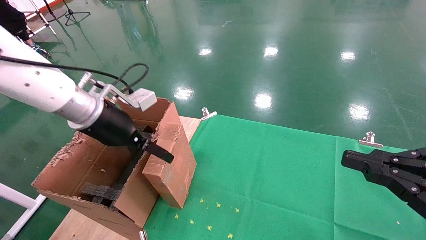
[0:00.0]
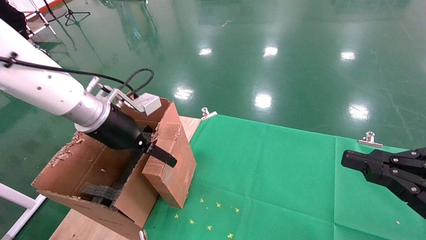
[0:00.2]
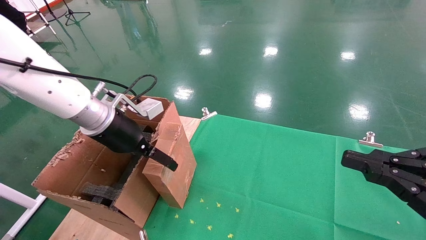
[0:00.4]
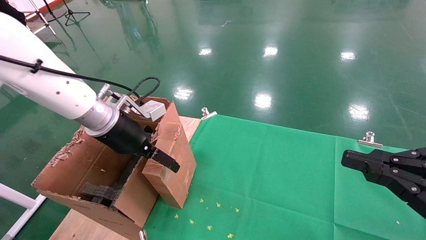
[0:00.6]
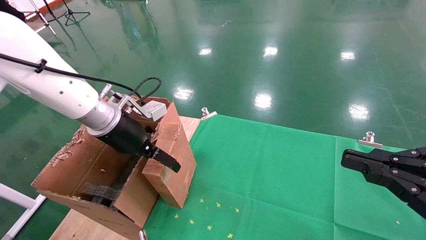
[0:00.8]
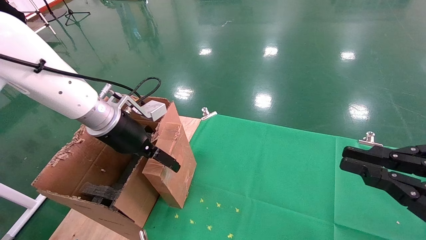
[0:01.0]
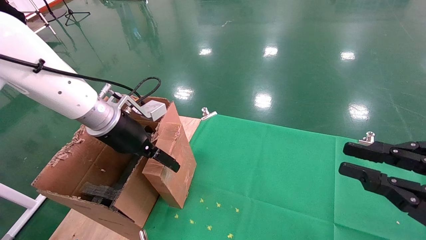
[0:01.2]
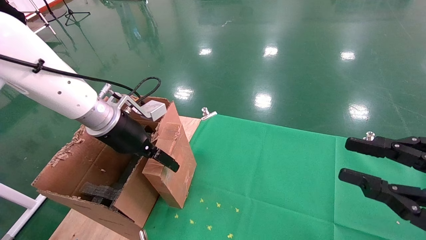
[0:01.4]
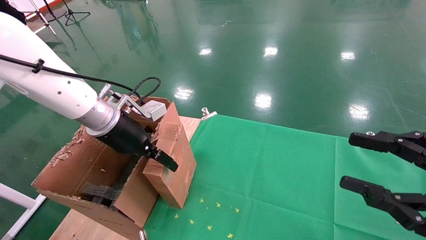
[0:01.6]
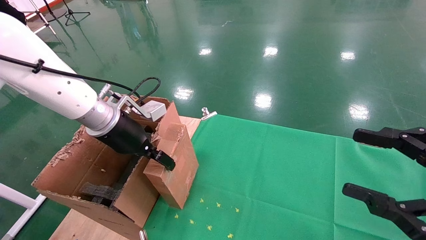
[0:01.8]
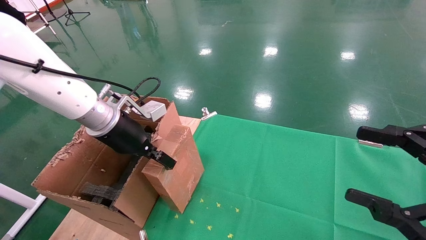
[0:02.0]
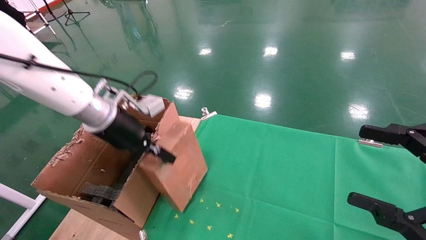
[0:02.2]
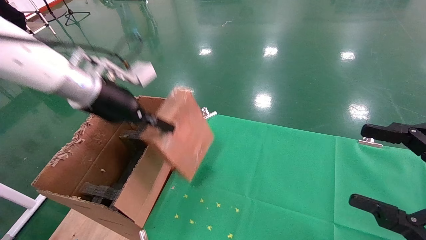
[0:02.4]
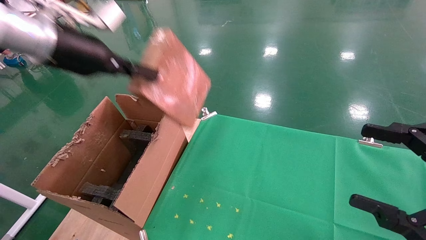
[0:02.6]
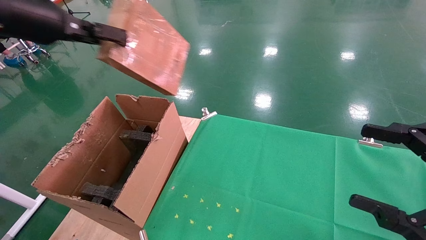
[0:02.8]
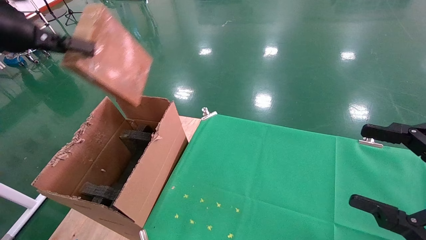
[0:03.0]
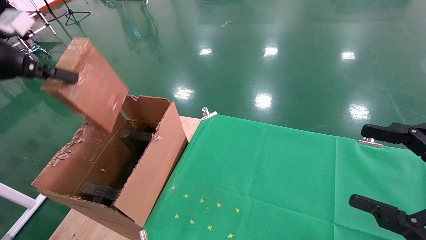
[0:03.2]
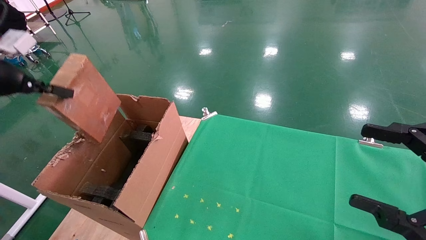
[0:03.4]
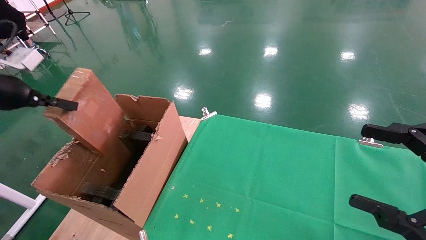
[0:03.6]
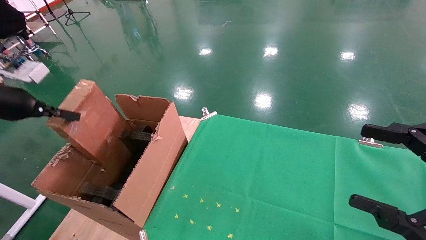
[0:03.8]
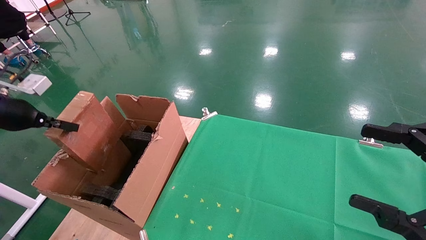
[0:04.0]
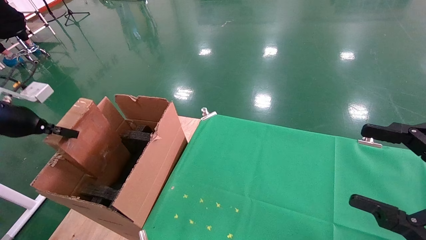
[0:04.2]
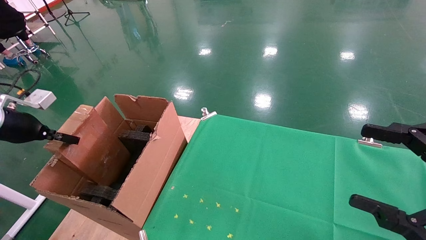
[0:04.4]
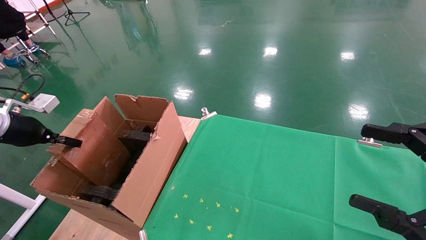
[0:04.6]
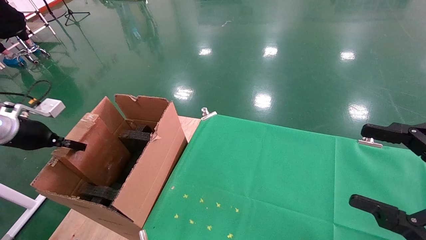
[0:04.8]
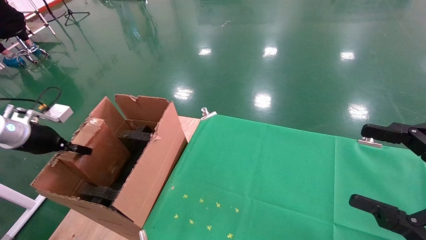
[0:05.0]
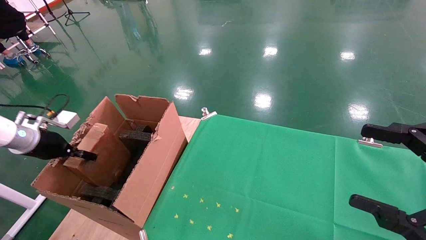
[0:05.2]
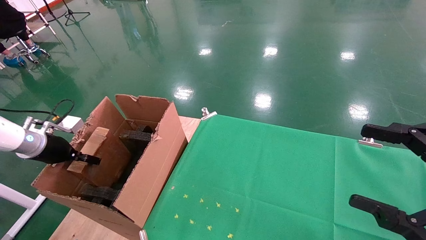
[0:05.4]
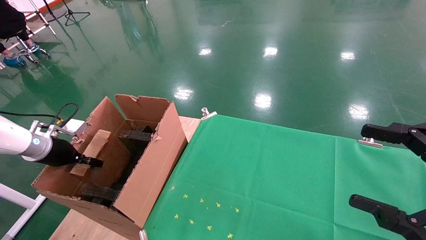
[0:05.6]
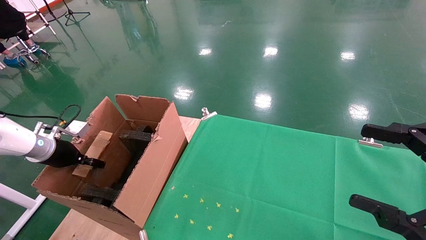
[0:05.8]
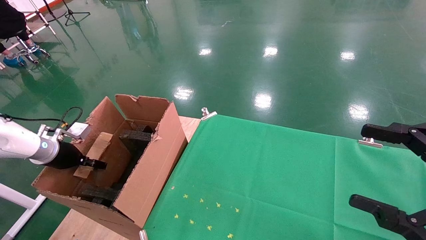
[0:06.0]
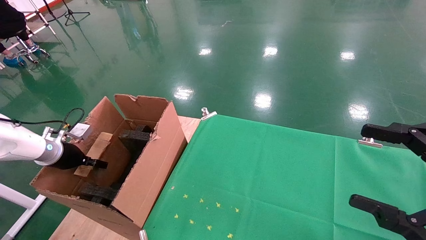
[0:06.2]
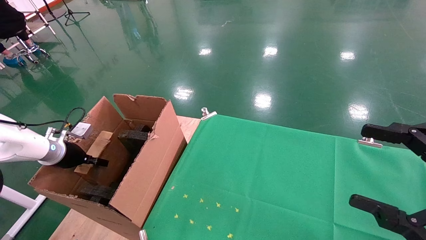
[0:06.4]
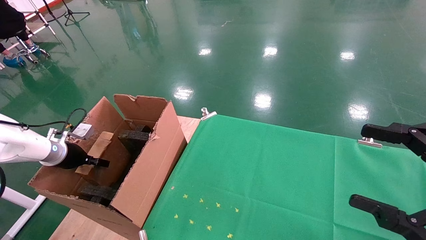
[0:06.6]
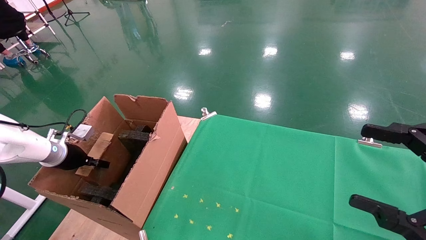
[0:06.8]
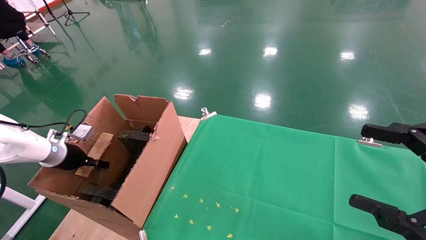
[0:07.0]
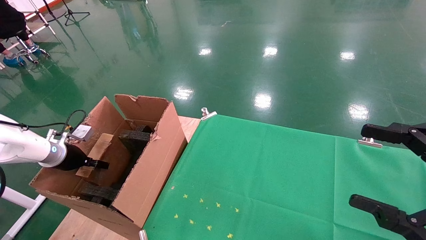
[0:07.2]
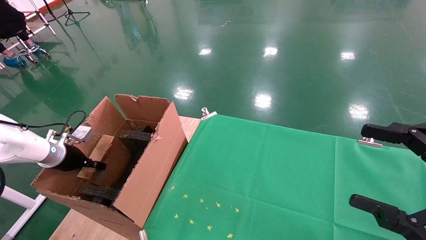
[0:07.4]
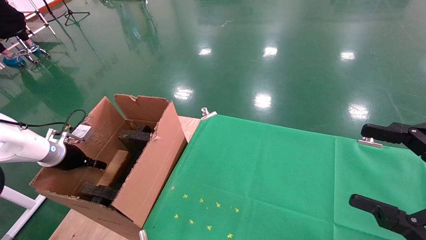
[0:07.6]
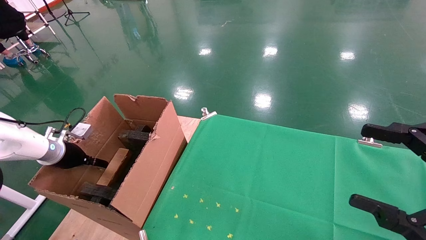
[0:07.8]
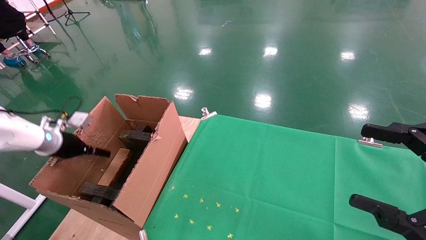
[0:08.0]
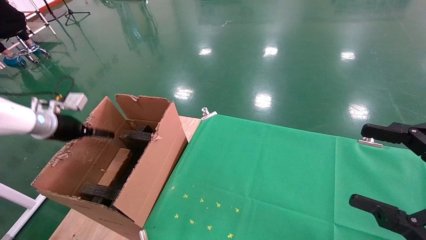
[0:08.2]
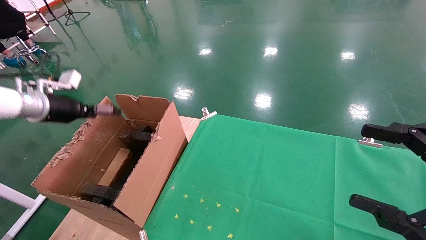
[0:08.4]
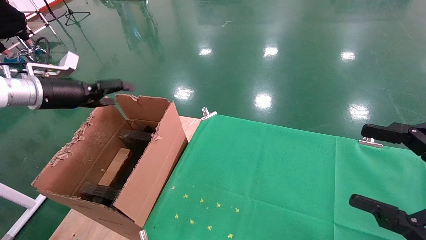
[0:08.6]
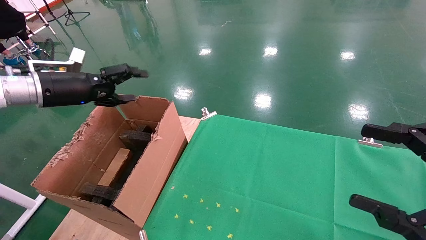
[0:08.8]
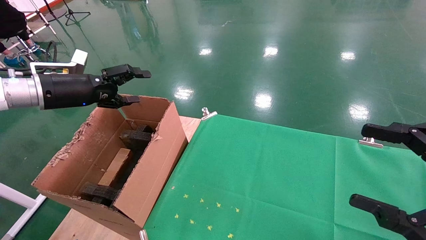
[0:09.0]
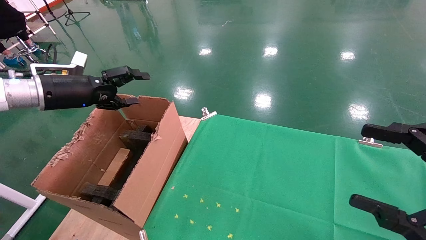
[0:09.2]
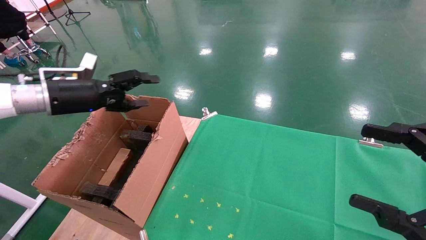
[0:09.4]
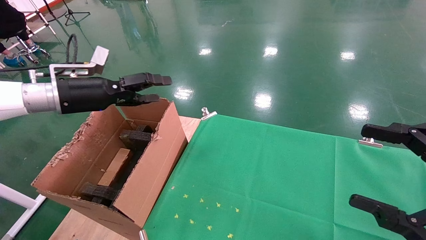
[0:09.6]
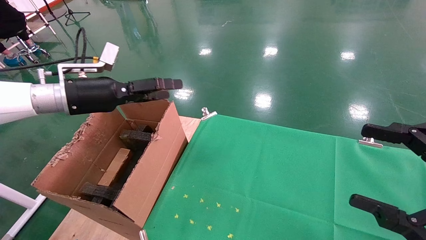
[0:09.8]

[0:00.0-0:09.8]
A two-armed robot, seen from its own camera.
Task of the whole recording: using a robotic arm to pick up a cardboard box and palace it the carton.
Step, 0:02.0 to 0:08.4: Place the mouse and the power cord paper box into the container.
0:00.0 to 0:01.4: The grippers make only small movements.
0:01.4 to 0:02.8: The left gripper heads upward and to the left, covering some 20 cm, and closes its fingers. The right gripper opens up.
0:02.8 to 0:04.2: The left gripper moves downward and to the left, approximately 25 cm.
0:04.2 to 0:05.6: The left gripper heads downward and forward, covering some 10 cm.
0:05.6 to 0:07.0: The grippers stay close to where they were, moving slightly.
0:07.0 to 0:08.4: The left gripper travels upward by roughly 15 cm, and opens its fingers.
0:08.4 to 0:09.8: The left gripper shifts about 15 cm to the right.

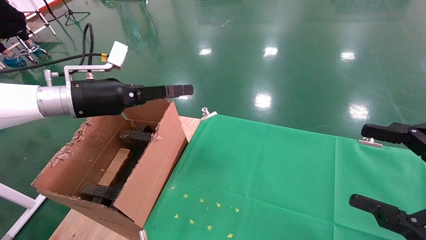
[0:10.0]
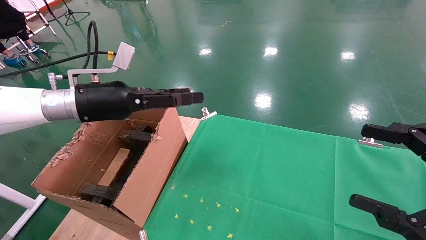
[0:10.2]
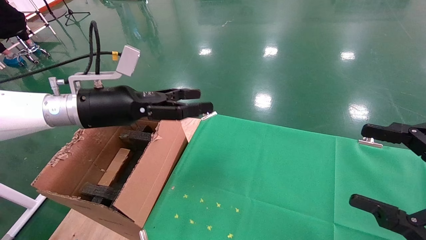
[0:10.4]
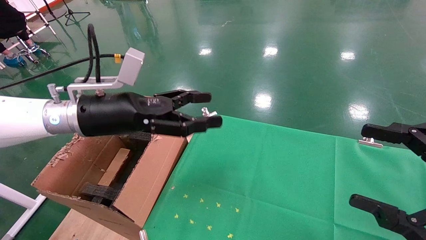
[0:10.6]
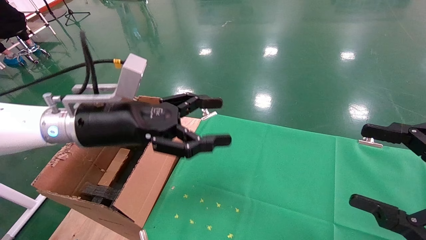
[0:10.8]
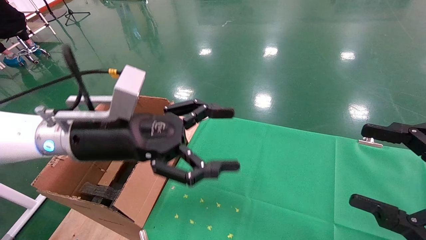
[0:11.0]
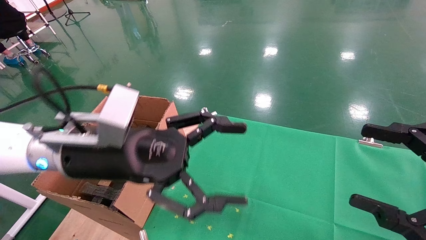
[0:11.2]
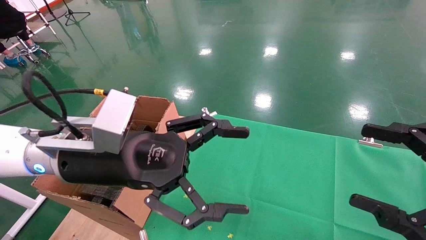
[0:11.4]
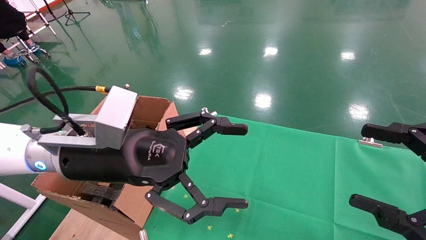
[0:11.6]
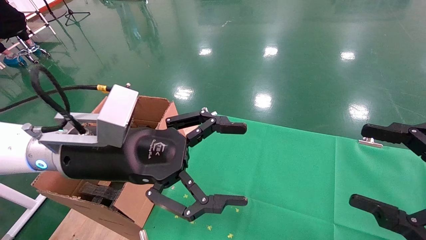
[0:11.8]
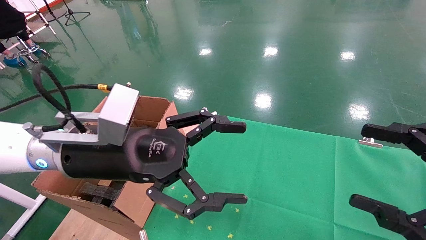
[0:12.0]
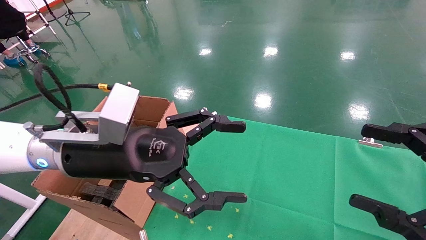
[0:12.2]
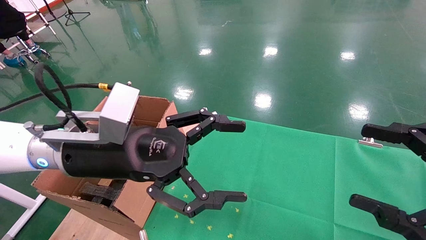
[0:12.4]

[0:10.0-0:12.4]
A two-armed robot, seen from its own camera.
Task of the whole recording: using a robotic arm to pick up a cardboard box and palace it the carton.
0:10.0 to 0:11.2: The left gripper shifts some 15 cm to the right and backward.
0:11.2 to 0:12.4: Neither gripper changes place.

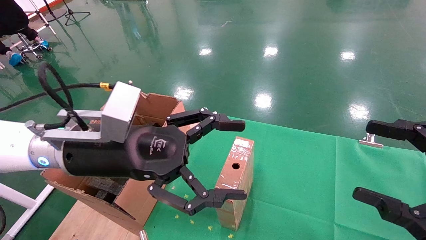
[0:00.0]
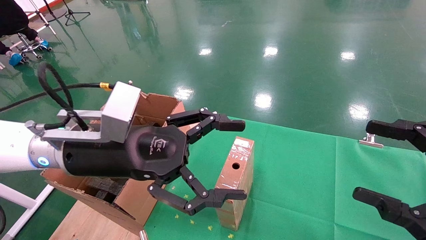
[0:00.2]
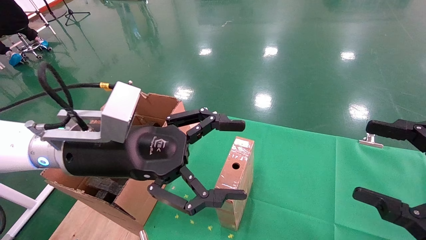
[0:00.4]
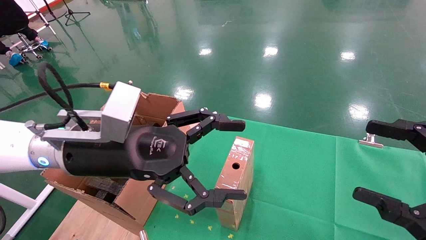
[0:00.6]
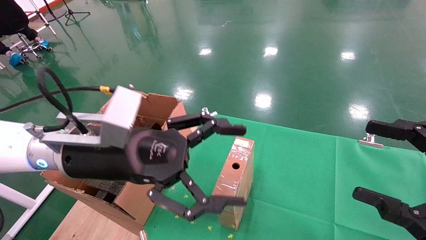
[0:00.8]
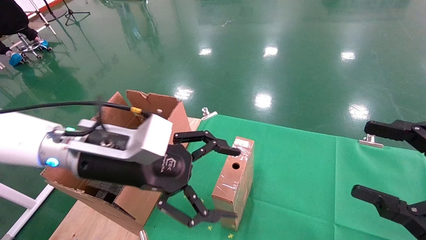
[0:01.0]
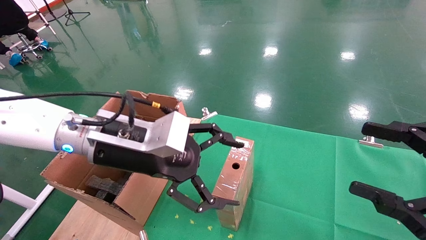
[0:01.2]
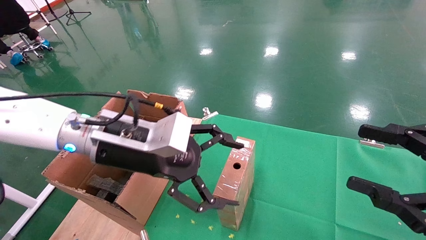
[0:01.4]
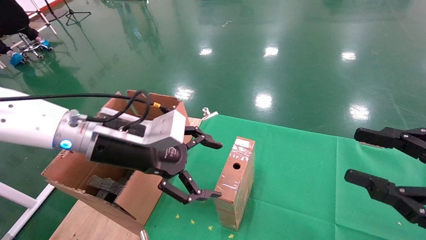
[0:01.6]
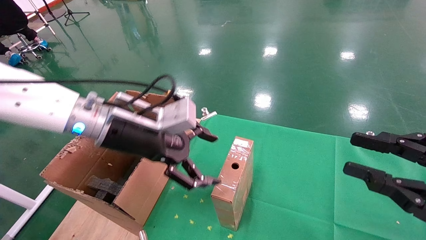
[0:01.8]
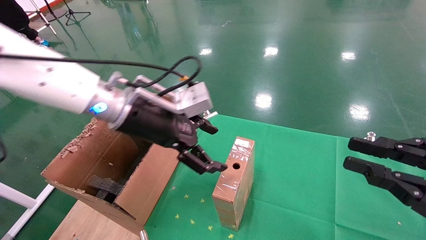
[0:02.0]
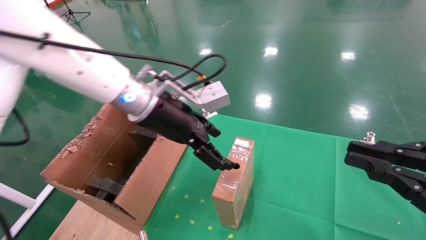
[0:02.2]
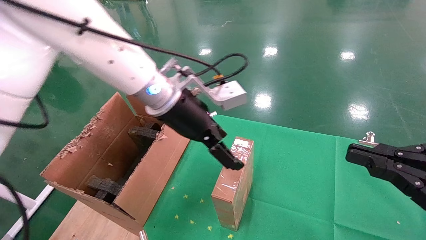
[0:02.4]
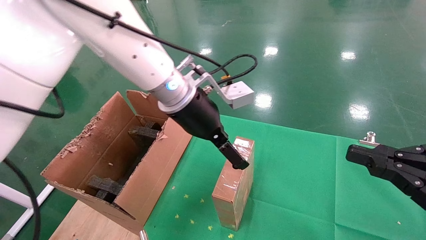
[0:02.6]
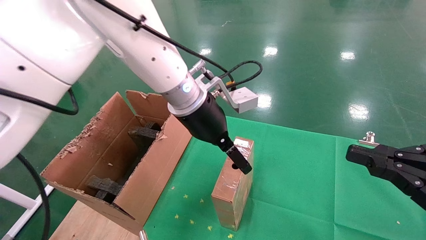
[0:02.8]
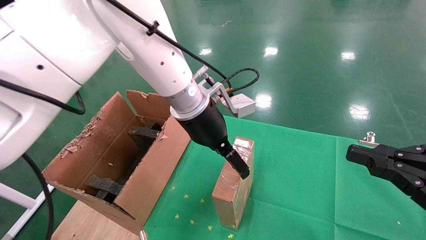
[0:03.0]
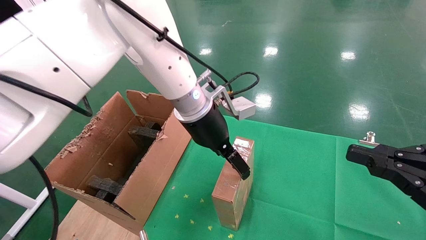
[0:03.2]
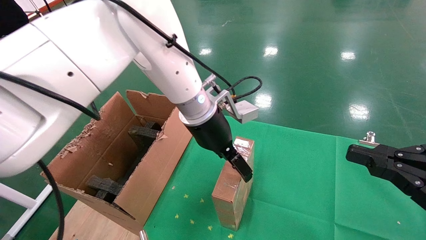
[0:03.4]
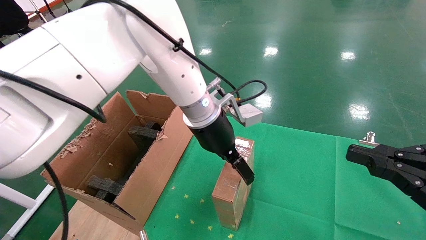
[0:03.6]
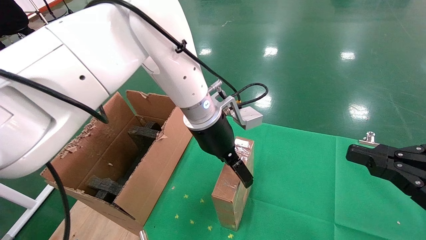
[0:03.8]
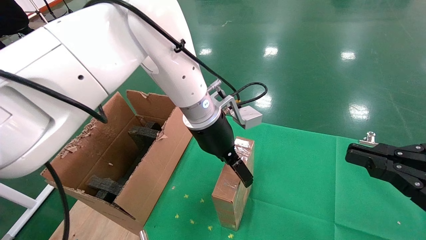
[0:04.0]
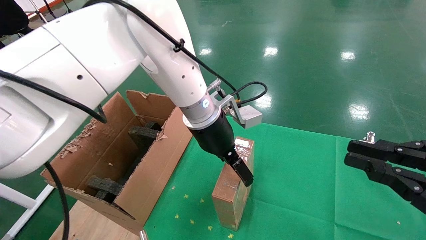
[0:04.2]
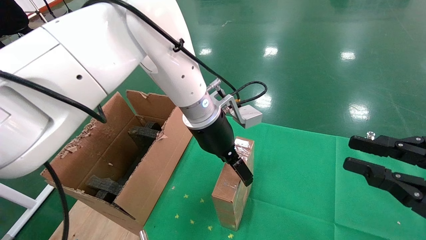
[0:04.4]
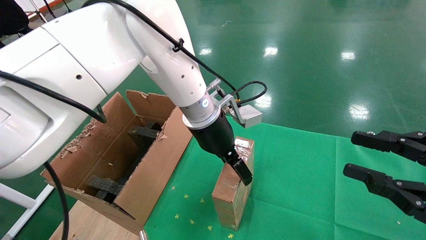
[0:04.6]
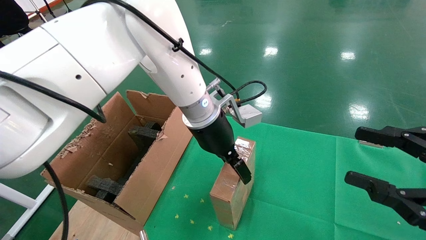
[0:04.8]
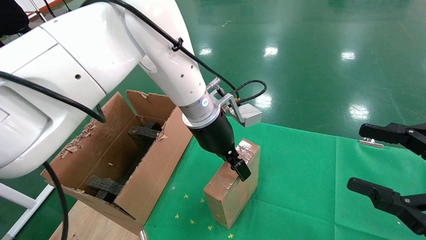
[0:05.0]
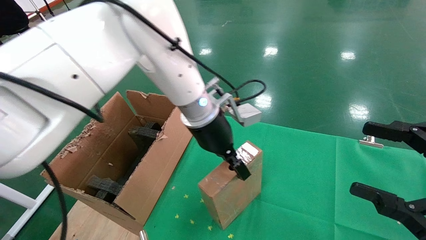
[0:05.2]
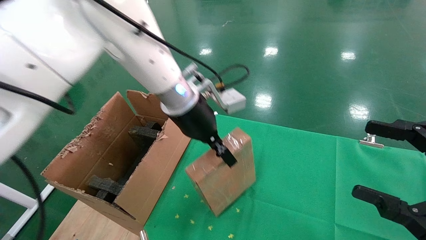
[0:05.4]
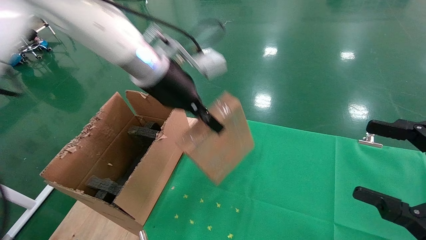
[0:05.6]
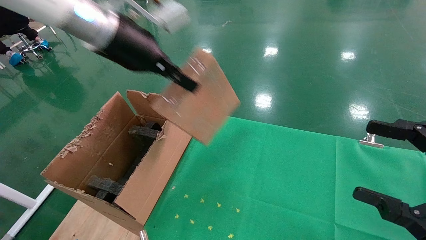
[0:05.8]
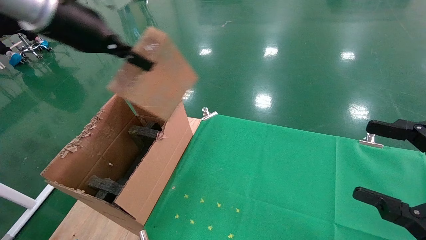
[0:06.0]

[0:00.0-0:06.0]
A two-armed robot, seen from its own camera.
Task of the whole recording: using a robotic arm to pick up a cardboard box and palace it the carton.
Step, 0:01.0 to 0:05.0: Pick up the mouse and the power cord paper box.
0:00.0 to 0:01.6: The right gripper closes.
0:01.6 to 0:03.0: The left gripper goes roughly 15 cm to the right and forward; the right gripper closes its fingers.
0:04.4 to 0:06.0: The left gripper is displaced to the left and upward by some 25 cm, and closes; the right gripper opens its fingers.
